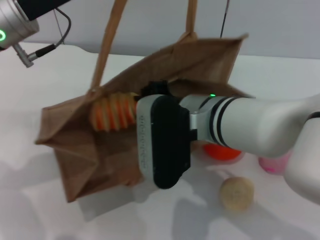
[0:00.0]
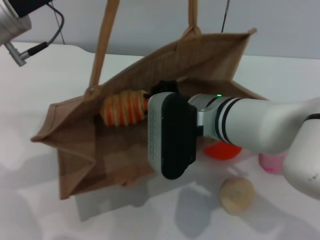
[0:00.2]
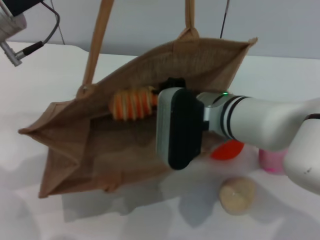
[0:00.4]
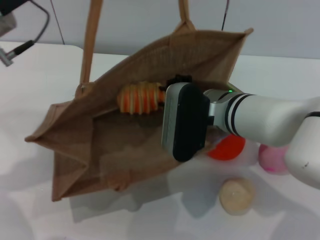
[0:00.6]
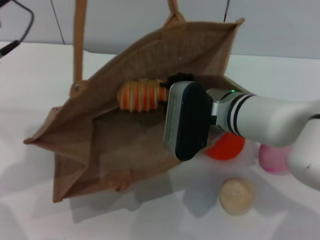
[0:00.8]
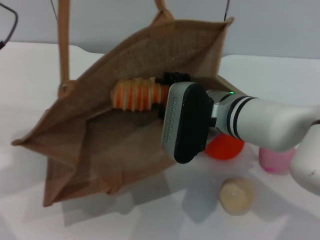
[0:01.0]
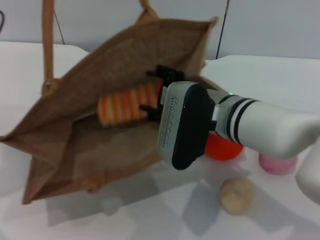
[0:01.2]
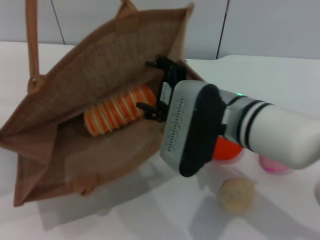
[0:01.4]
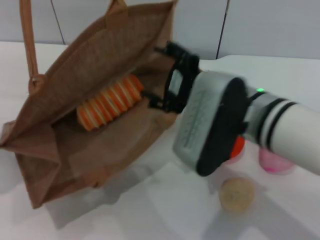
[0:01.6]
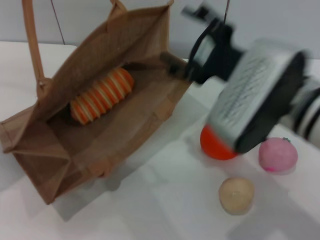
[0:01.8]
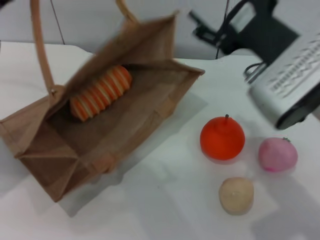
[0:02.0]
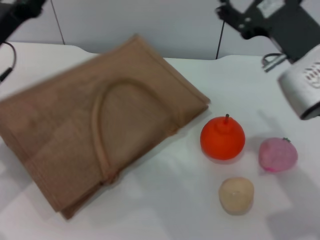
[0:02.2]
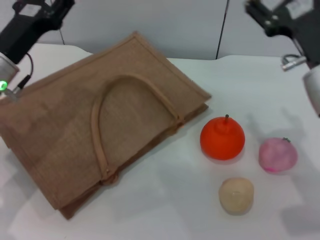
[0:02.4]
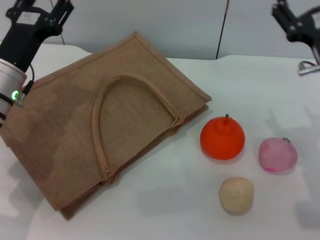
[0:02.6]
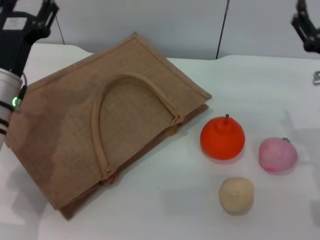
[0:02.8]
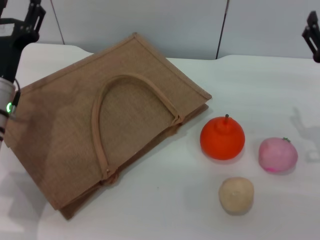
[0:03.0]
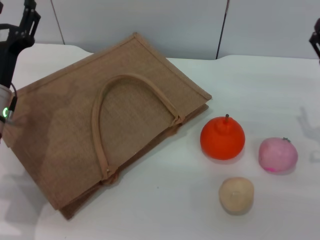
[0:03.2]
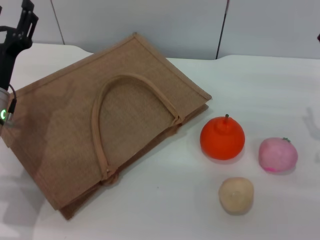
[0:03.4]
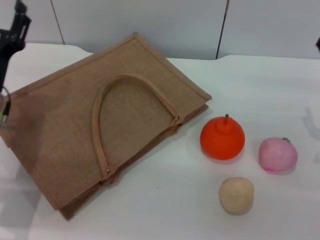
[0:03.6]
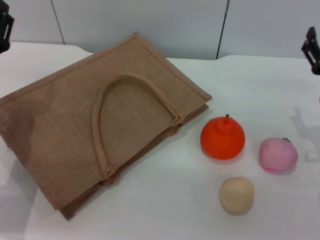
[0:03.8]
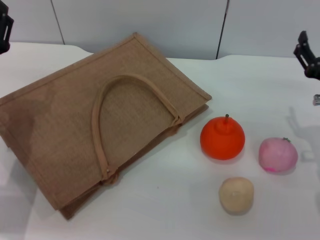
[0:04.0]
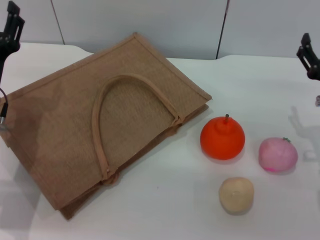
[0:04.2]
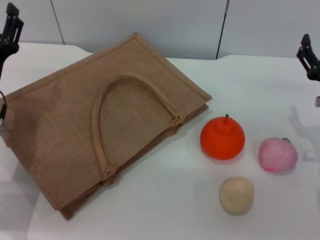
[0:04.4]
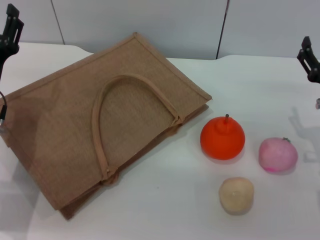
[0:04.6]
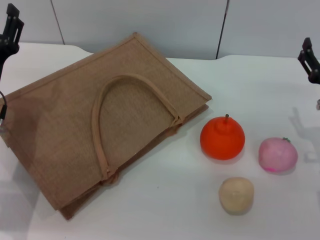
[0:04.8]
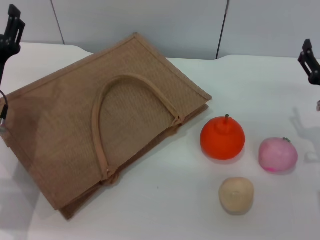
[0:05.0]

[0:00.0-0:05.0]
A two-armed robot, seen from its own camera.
Task of the whole recording: pick up the bread from the table and place it in the brown handbag.
Step, 0:01.8 to 0:03.4: Lower the woven bag with the left gripper to close it.
0:00.0 to 0:01.6: The right gripper moves about 5 cm, and opens up; the left gripper heads to the left, covering about 10 cm.
0:01.6 to 0:03.4: The left gripper shifts some 15 cm downward and to the right, and opens. The right gripper heads to the right and downward, covering approximately 20 cm.
0:03.4 to 0:05.0: The grippers move only a little.
